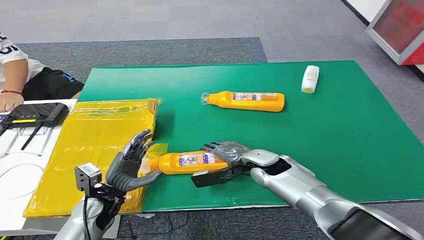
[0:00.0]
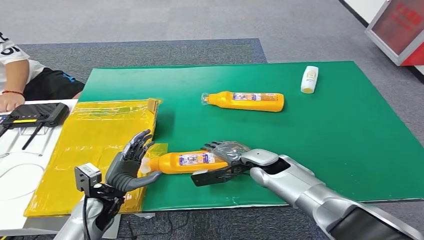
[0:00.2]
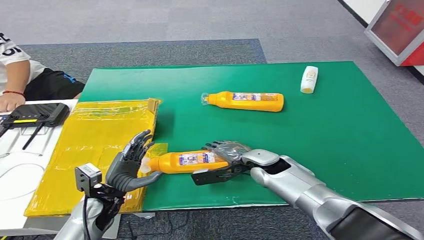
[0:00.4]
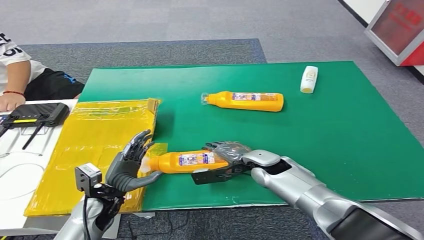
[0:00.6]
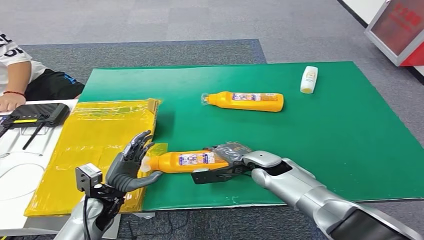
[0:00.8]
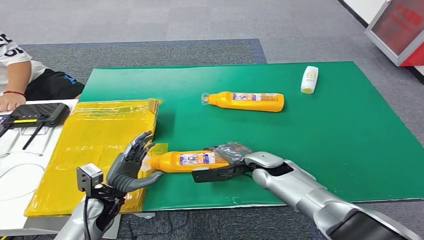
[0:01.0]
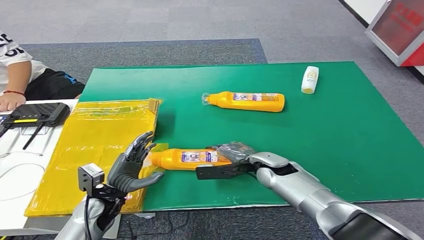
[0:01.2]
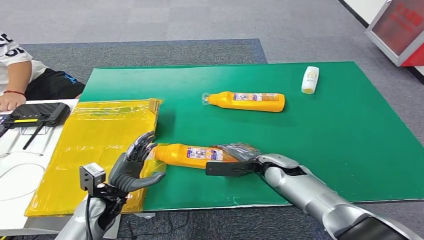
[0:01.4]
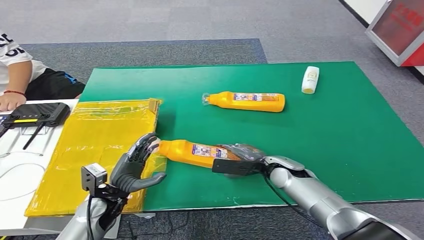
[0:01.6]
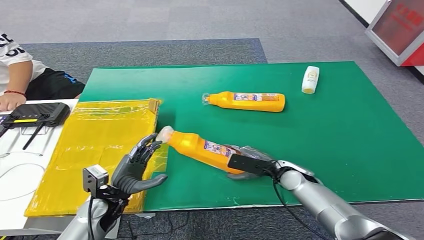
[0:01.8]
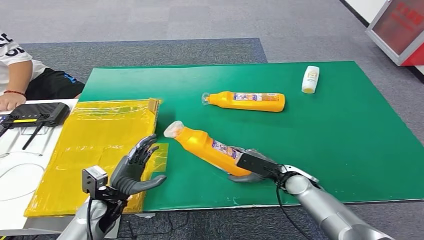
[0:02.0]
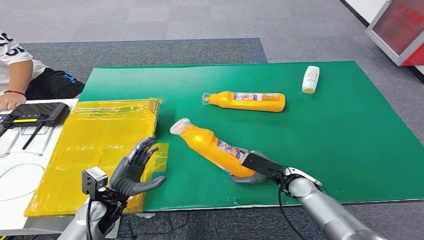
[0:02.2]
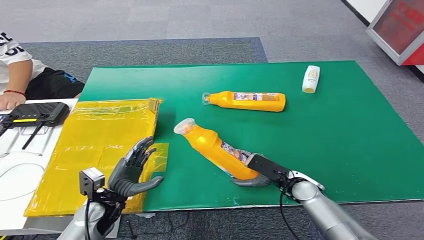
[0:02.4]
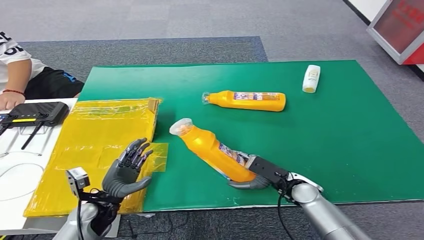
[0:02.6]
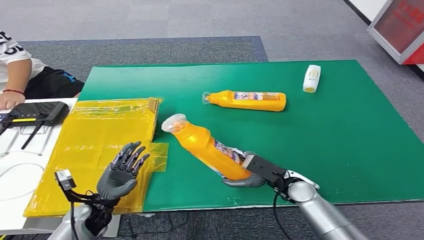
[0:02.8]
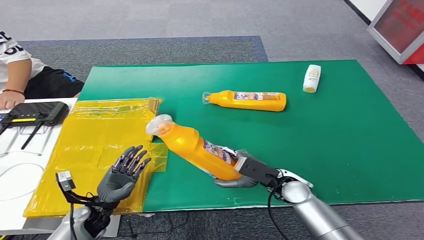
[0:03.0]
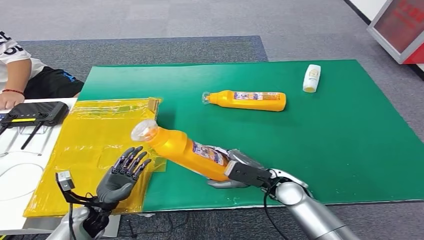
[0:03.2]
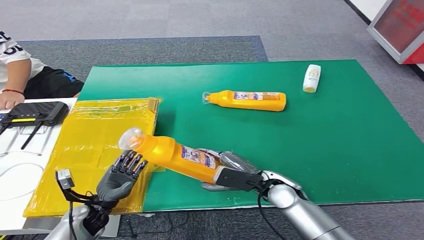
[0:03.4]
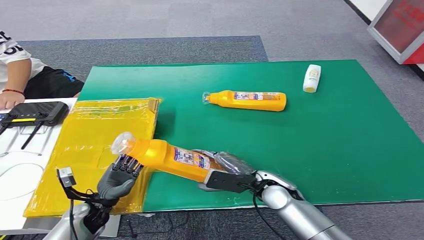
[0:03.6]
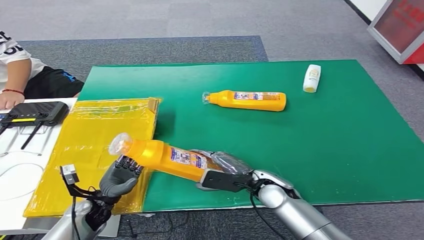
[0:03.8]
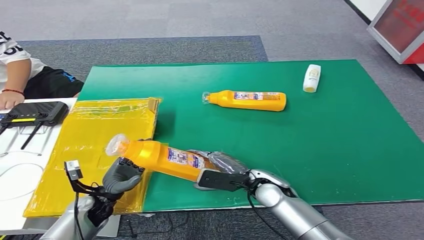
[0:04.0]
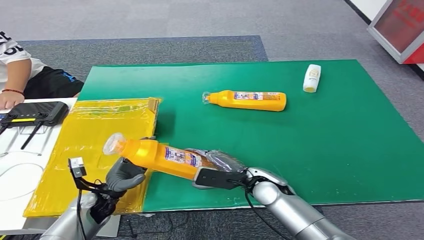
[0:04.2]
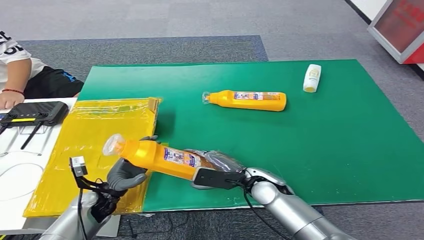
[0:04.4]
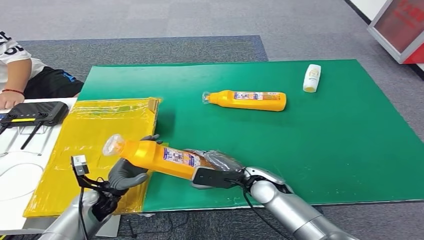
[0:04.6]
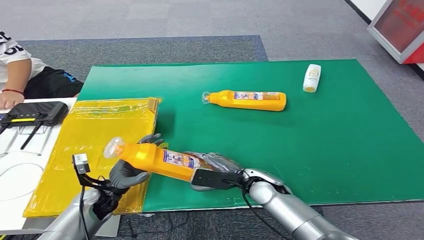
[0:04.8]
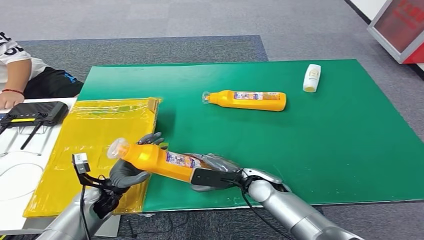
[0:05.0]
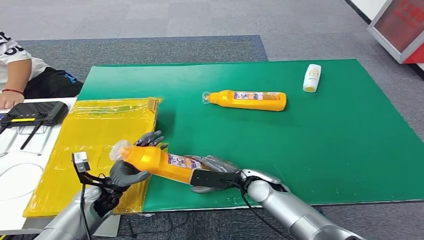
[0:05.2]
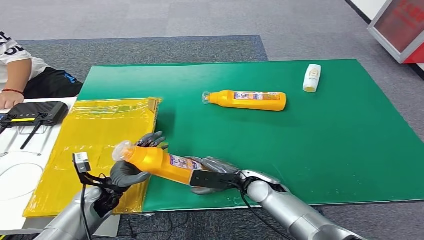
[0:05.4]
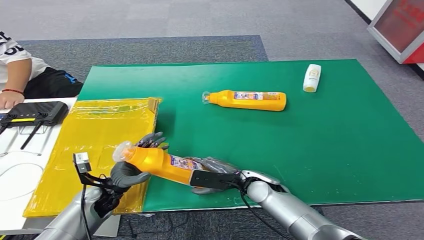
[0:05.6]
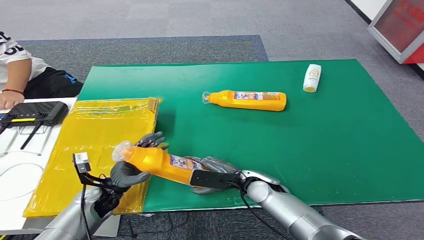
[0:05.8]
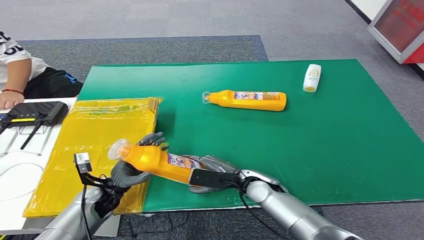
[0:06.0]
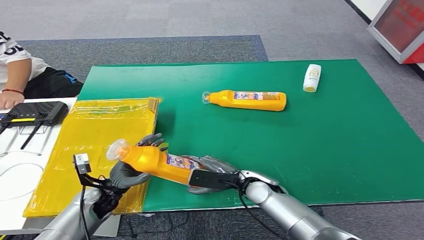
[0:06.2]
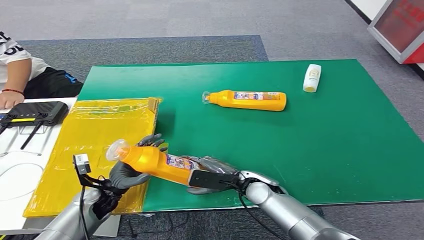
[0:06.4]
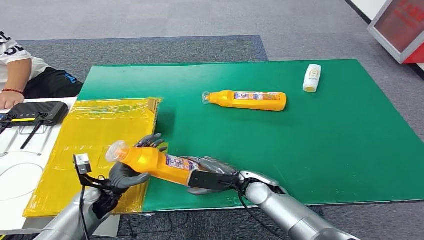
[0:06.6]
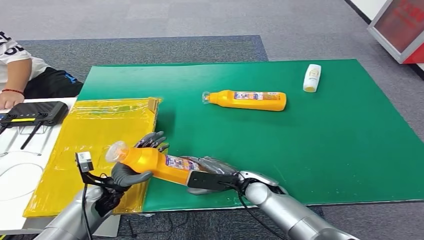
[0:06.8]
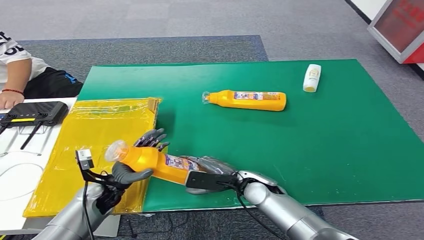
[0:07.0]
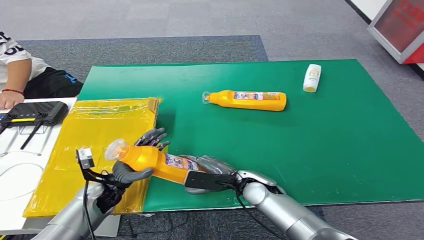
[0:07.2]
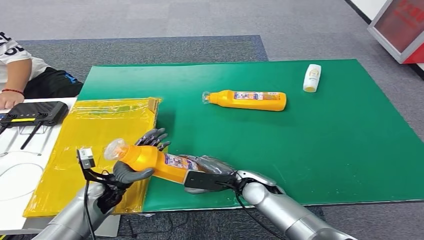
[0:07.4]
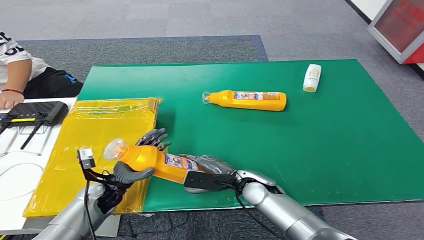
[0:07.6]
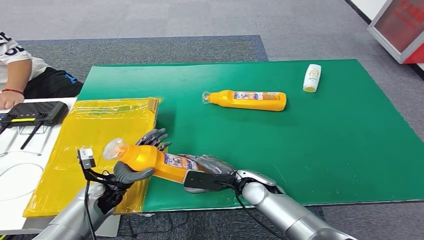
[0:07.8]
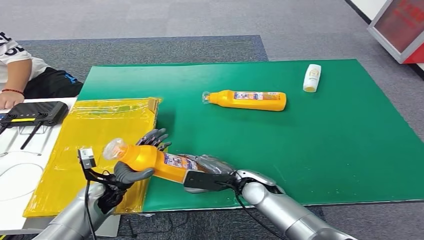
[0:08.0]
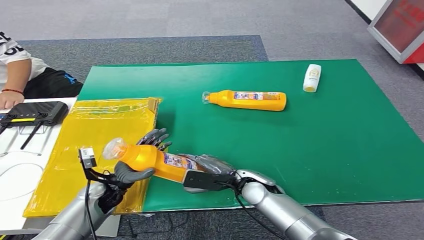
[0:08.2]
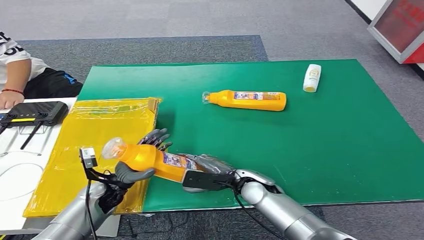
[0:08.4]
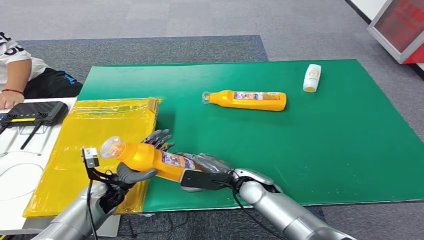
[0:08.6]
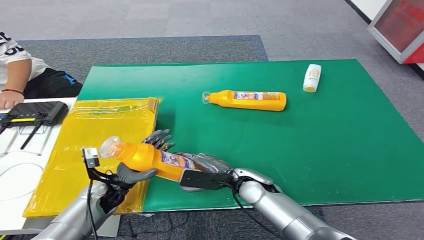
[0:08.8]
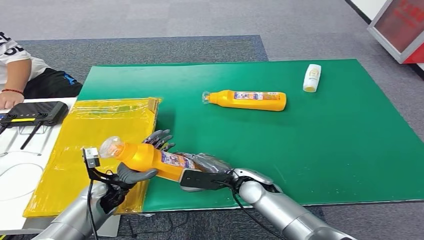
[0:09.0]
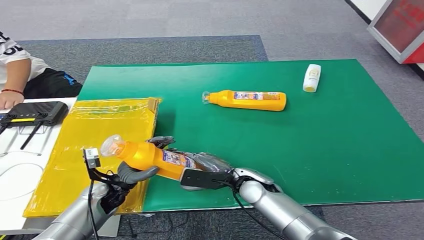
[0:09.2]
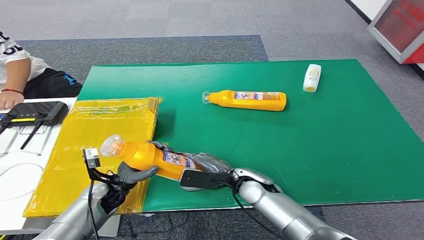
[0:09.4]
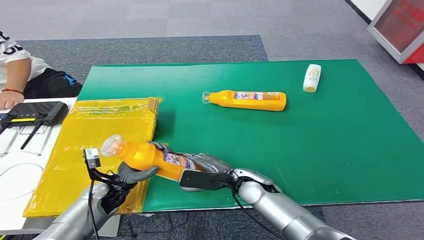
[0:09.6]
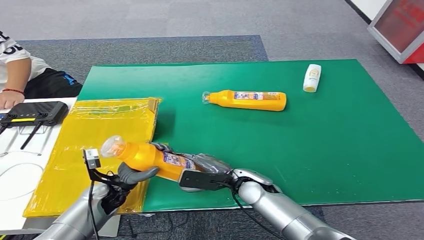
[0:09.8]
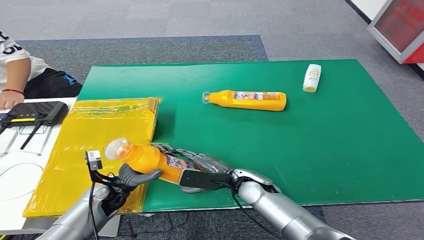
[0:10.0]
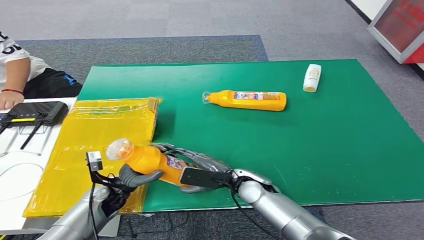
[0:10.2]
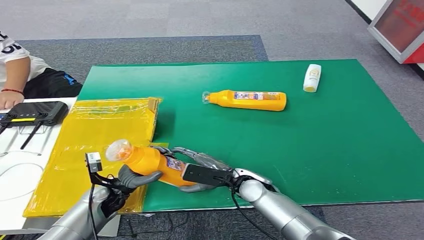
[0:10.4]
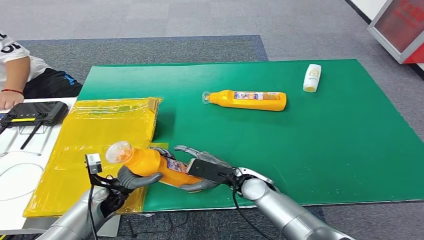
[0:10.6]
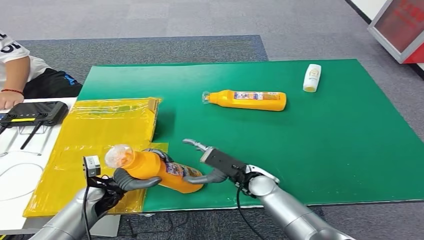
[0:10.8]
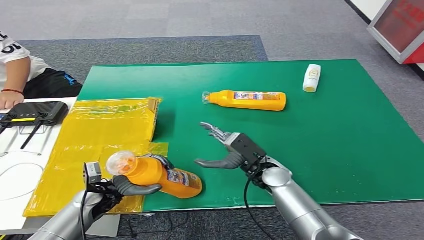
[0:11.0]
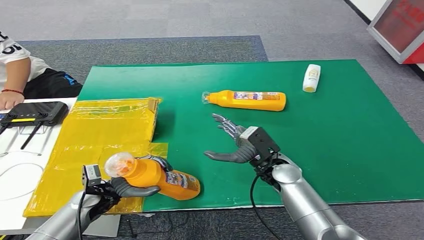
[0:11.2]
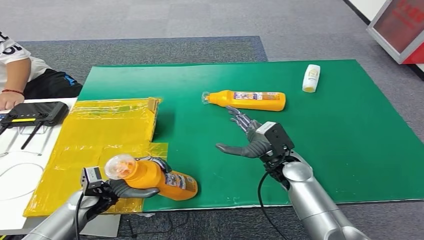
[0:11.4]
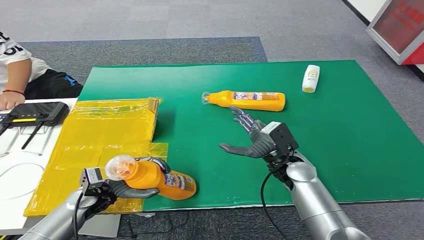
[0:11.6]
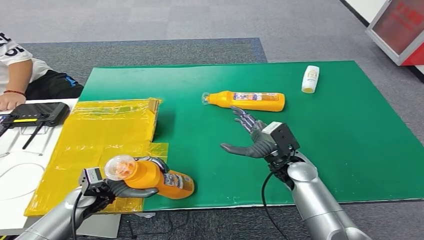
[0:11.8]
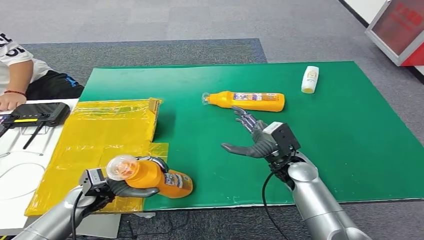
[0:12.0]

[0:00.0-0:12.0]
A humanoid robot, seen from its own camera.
Step, 0:00.0 to 0:02.0: Pick up the bottle from the table.
0:01.6 to 0:03.0: The left hand goes about 5 cm downward, while the right hand goes about 5 cm backward.
0:03.0 to 0:04.4: The right hand goes approximately 5 cm to the left.
0:04.4 to 0:06.0: There are only small adjustments of the hands.
0:06.0 to 0:07.6: Both hands stay about where they are.
0:07.6 to 0:09.0: Both hands stay about where they are.
0:09.0 to 0:10.4: The hands move only a little.

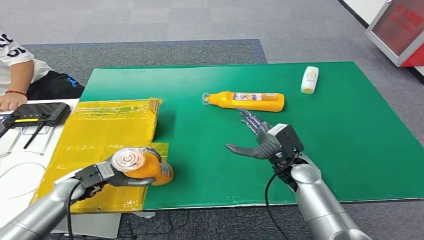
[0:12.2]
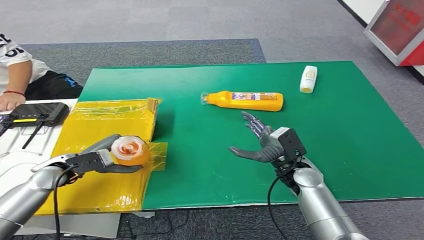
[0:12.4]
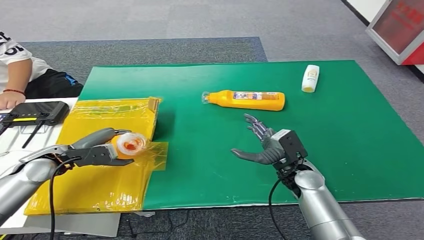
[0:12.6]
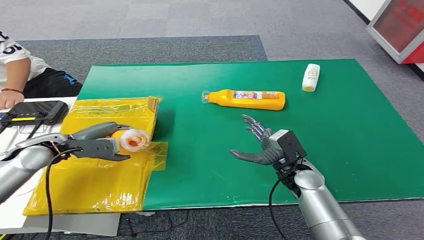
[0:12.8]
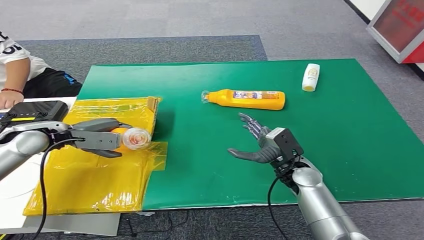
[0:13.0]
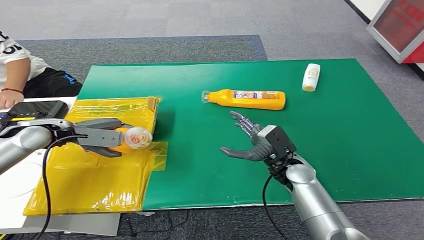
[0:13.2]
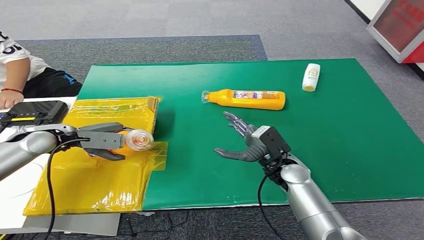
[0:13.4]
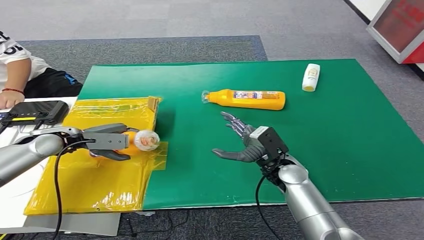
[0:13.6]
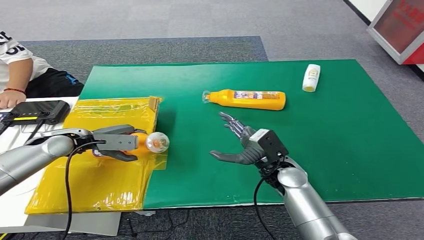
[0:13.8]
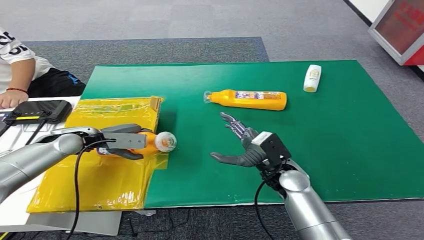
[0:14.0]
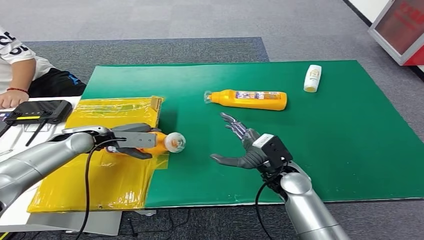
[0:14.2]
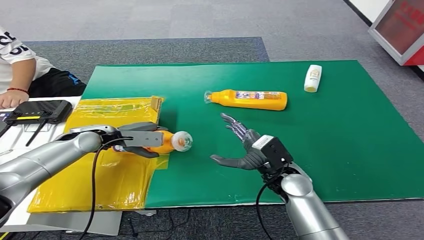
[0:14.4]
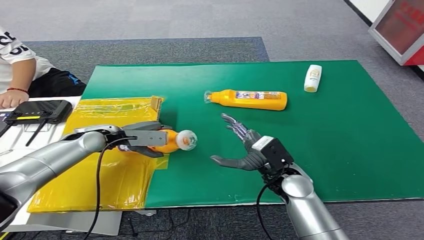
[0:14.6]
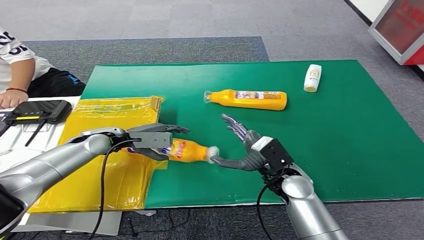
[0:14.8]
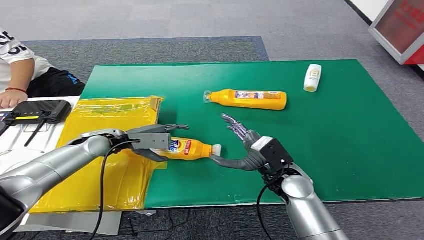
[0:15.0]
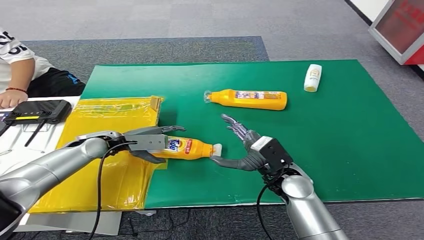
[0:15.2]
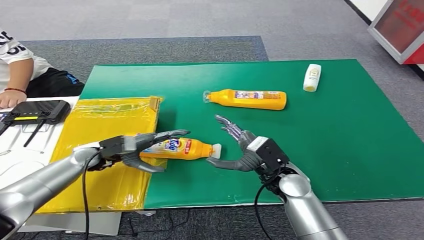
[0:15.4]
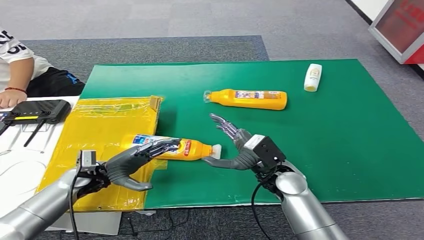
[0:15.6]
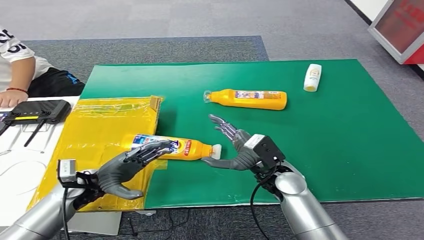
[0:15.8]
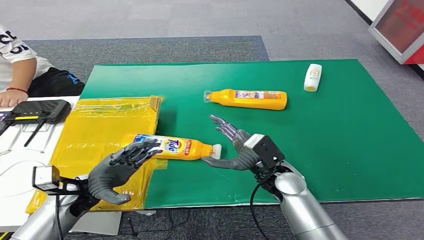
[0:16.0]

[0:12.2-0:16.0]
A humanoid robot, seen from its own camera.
Step, 0:12.2 to 0:16.0: Turn the bottle to the front side.
0:14.8 to 0:16.0: The left hand shifts about 15 cm backward.
